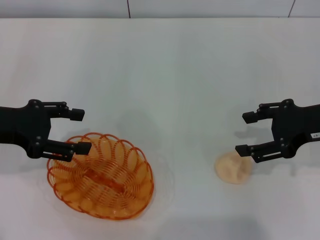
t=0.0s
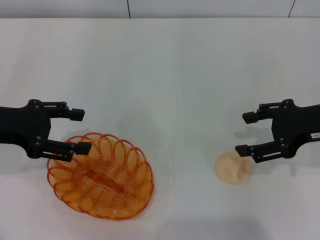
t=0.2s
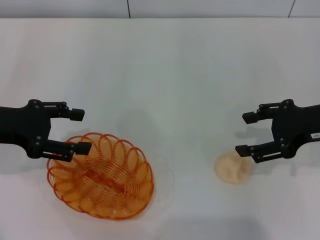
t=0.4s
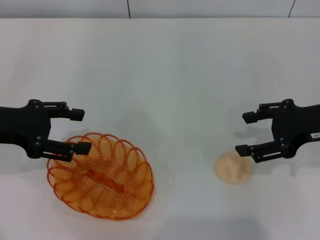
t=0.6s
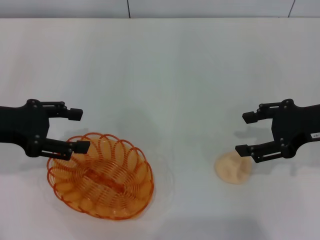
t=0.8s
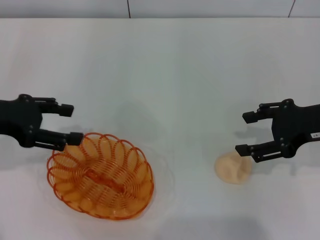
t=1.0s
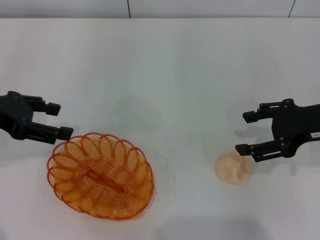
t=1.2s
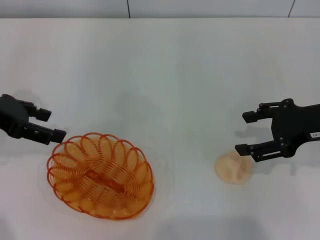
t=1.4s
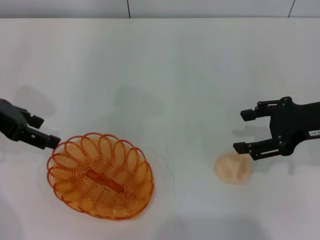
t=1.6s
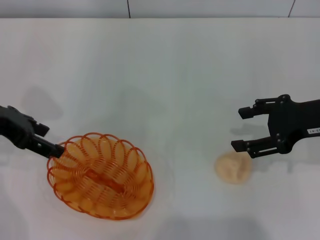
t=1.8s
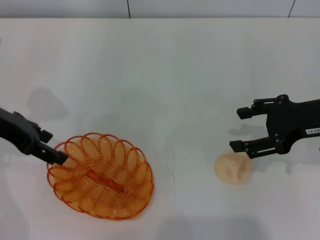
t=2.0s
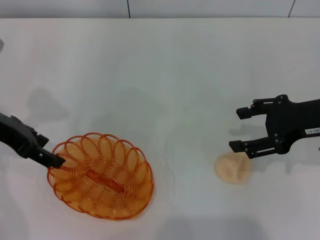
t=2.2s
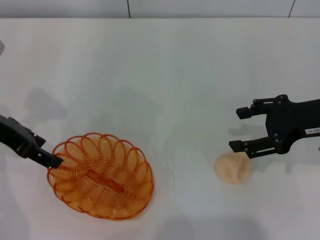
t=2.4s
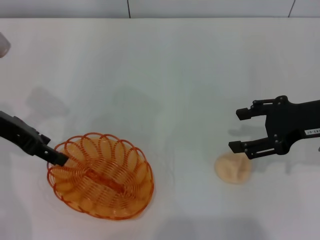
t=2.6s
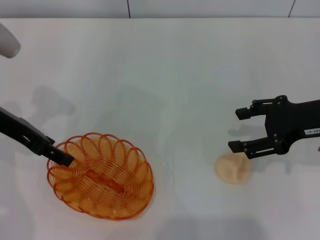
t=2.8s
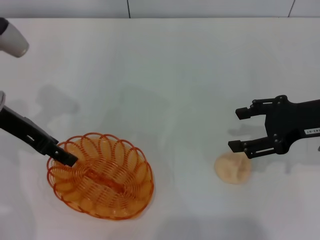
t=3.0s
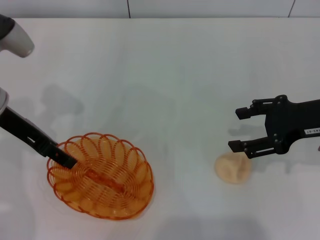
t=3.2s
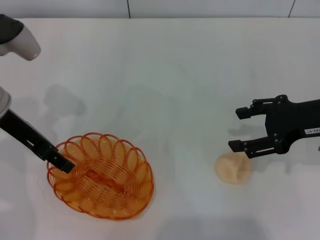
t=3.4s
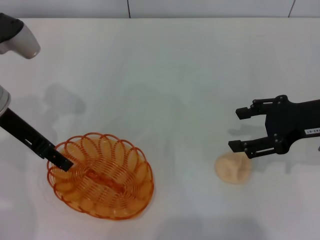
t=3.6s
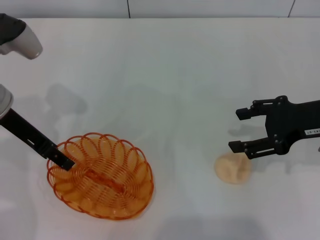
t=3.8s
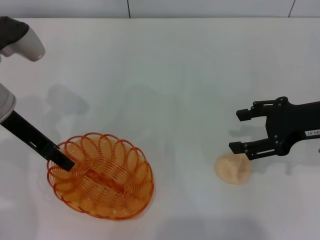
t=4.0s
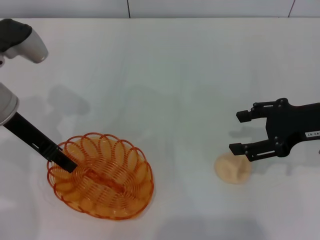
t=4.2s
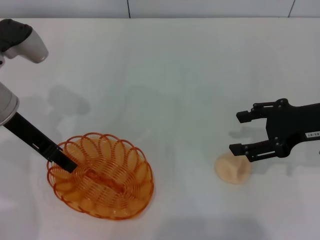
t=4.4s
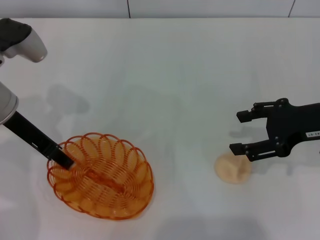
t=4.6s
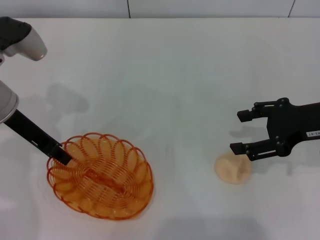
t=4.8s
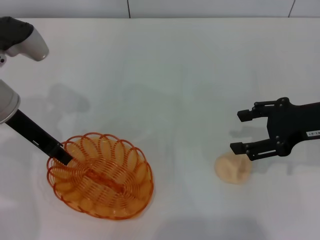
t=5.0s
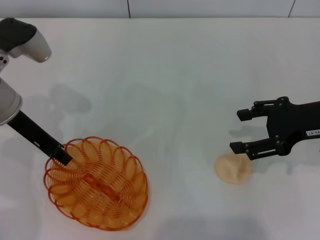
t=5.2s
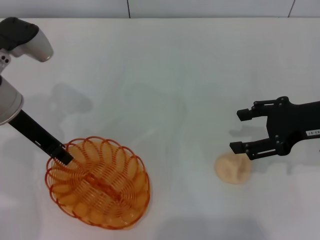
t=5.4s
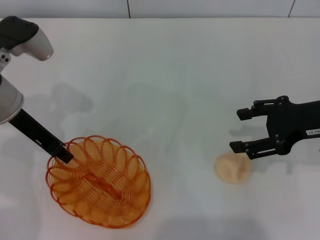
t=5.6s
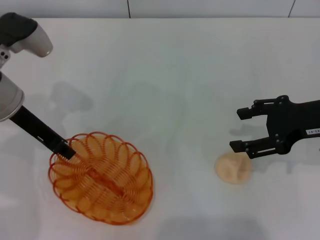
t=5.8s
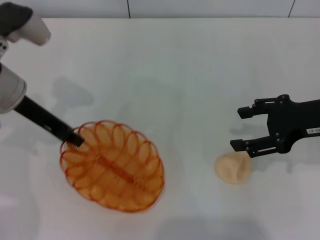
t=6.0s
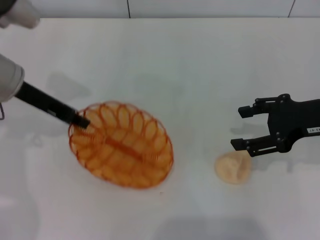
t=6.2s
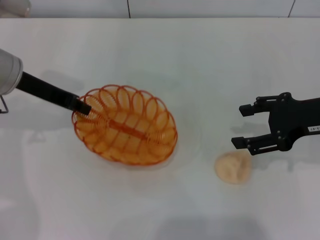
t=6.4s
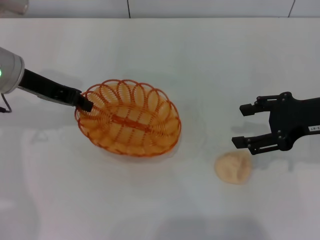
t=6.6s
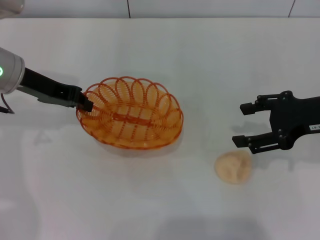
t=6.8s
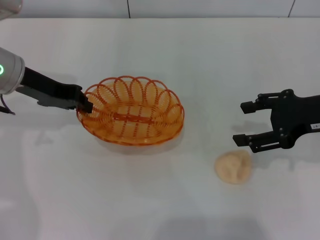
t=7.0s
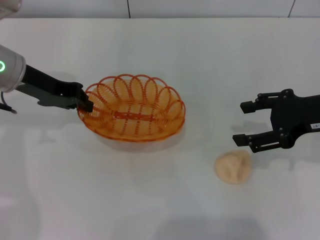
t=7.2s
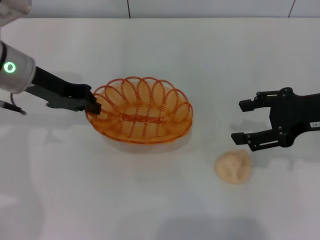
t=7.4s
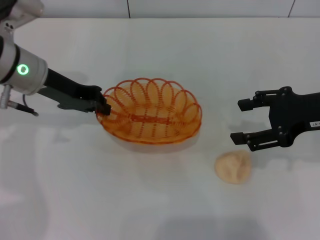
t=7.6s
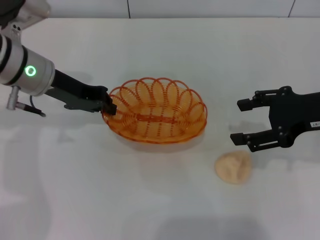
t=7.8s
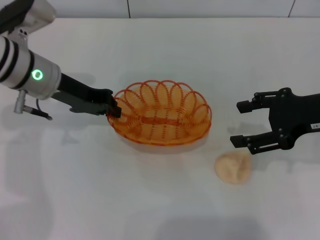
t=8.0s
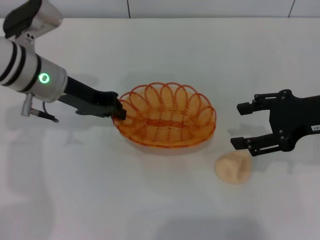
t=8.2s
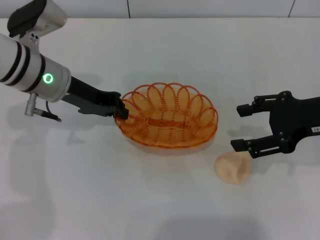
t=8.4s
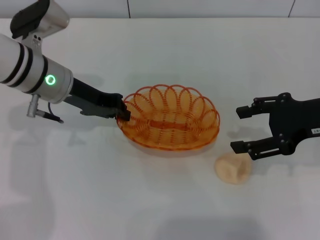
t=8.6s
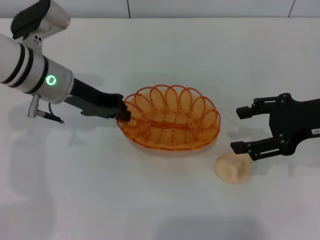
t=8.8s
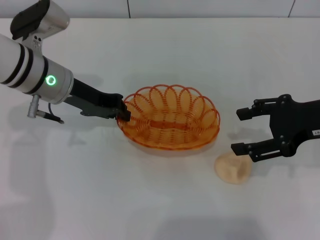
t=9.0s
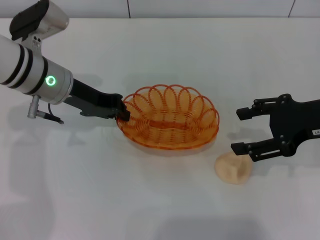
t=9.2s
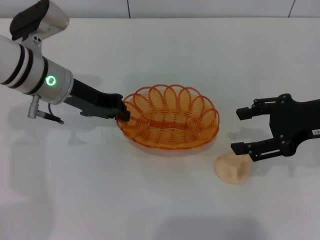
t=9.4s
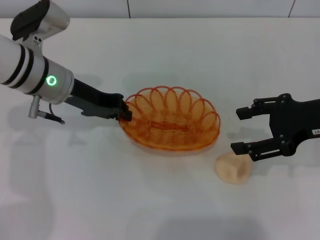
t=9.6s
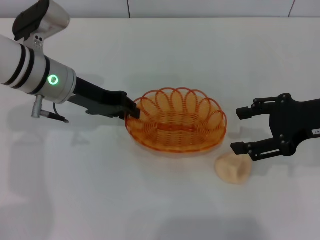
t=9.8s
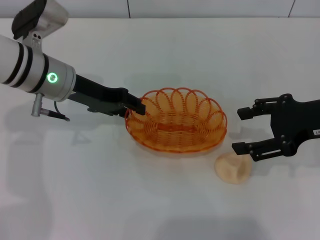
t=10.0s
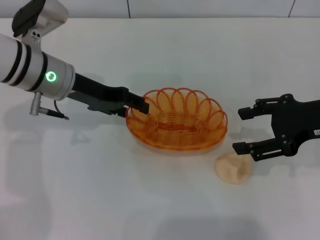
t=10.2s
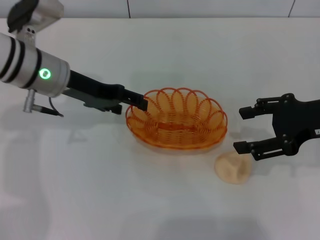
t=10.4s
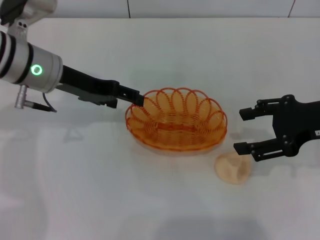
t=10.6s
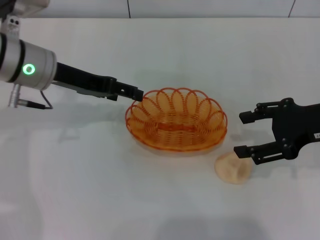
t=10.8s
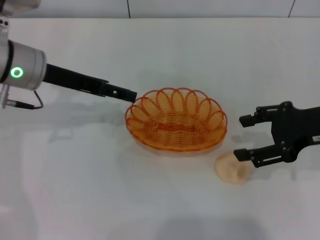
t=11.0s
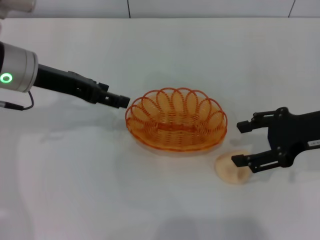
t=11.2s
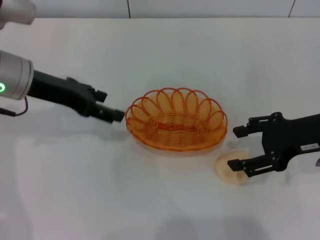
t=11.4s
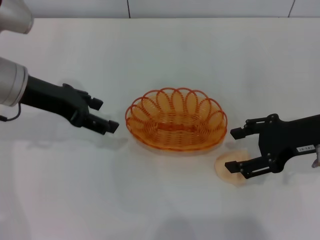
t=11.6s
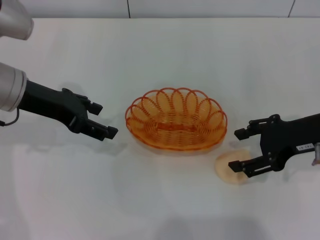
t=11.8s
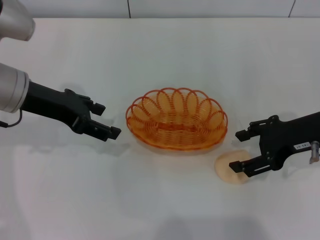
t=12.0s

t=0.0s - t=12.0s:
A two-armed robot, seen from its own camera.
Step, t=0.0s - t=6.2s: Pick up the basket with the left gripper.
Step, t=6.4s - t=11.0s: Place the basket in the center of view with the left gripper.
t=1.6s - t=3.0s: The left gripper ends up some 5 cm from where it was.
t=3.0s - t=4.4s: The grippers make only small movements.
t=4.4s - t=6.0s: The left gripper closes.
t=7.6s - t=9.0s: The grippers move only a little.
t=9.0s - t=10.4s: The left gripper opens up.
t=10.4s - t=12.0s: The left gripper moves about 5 cm.

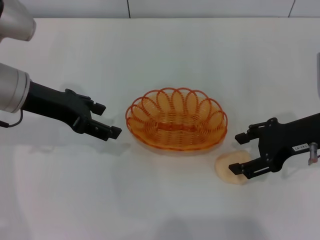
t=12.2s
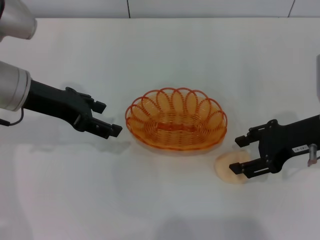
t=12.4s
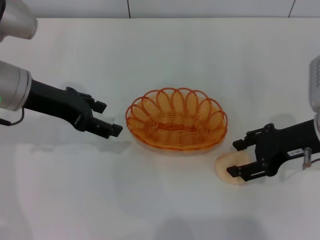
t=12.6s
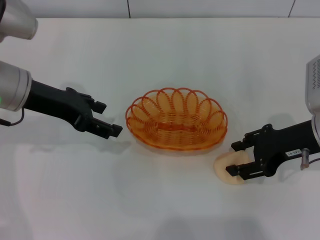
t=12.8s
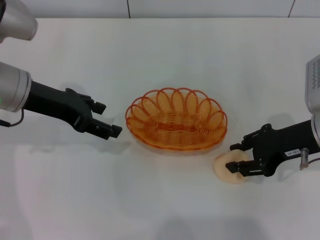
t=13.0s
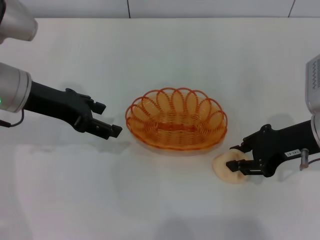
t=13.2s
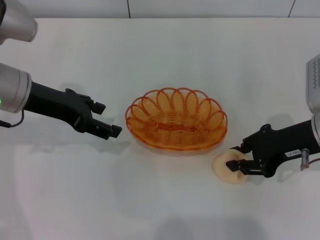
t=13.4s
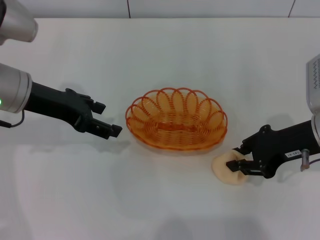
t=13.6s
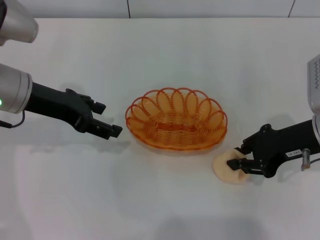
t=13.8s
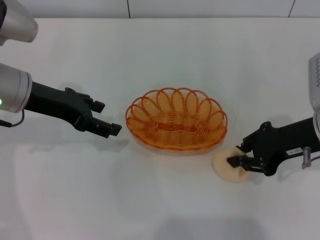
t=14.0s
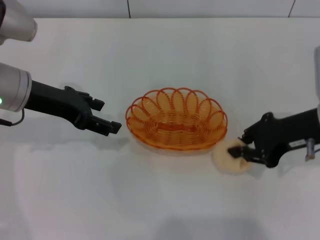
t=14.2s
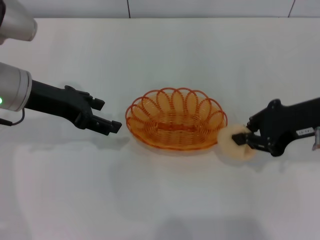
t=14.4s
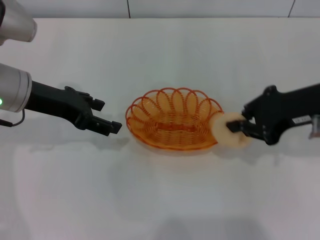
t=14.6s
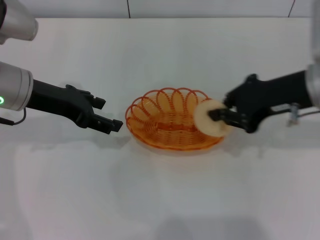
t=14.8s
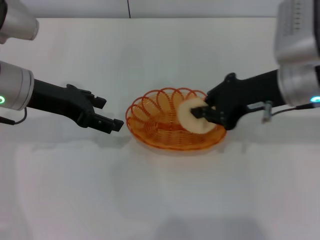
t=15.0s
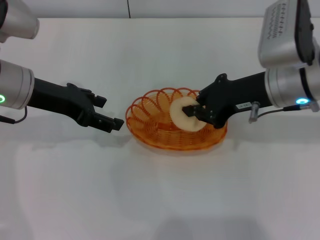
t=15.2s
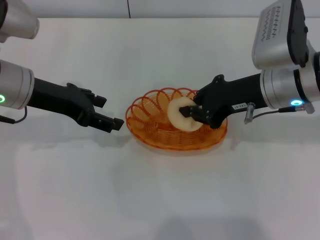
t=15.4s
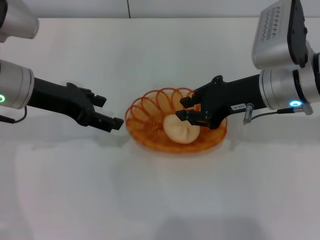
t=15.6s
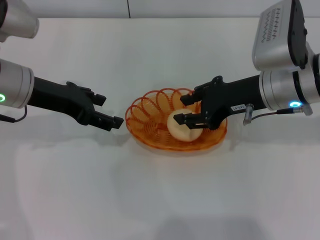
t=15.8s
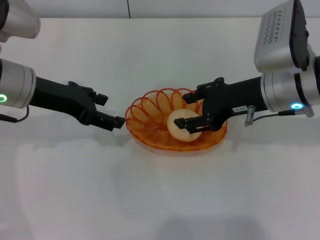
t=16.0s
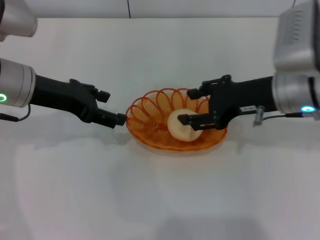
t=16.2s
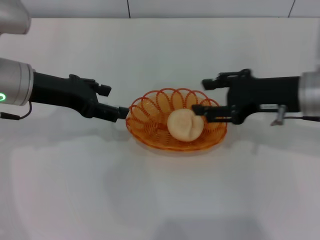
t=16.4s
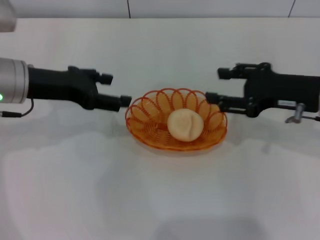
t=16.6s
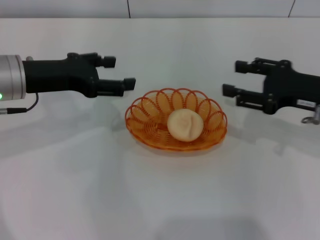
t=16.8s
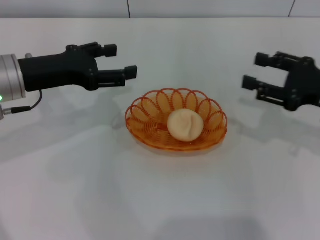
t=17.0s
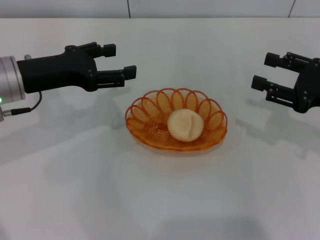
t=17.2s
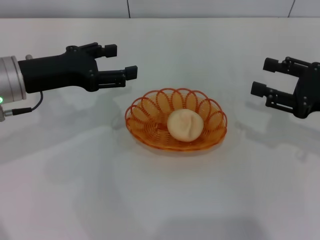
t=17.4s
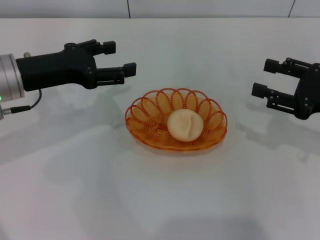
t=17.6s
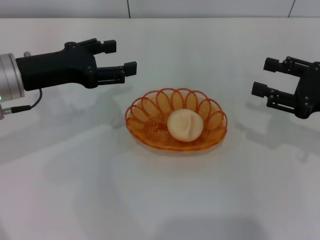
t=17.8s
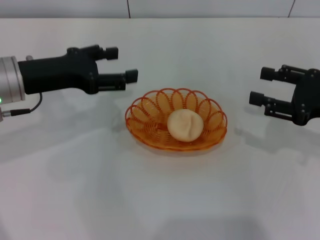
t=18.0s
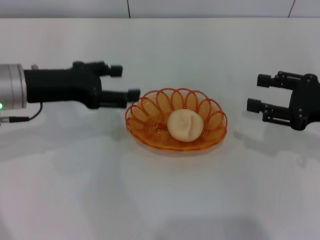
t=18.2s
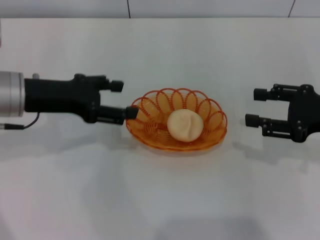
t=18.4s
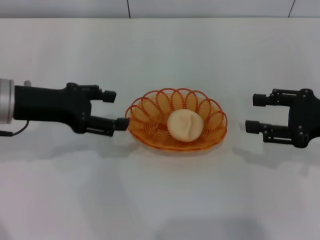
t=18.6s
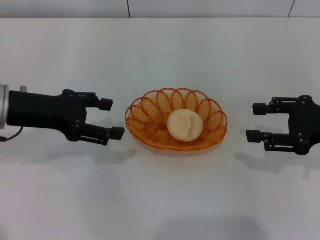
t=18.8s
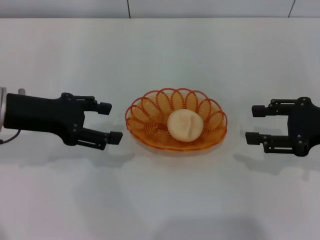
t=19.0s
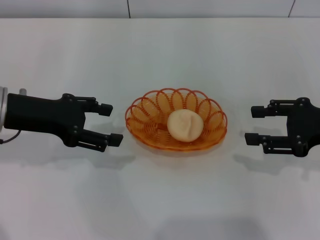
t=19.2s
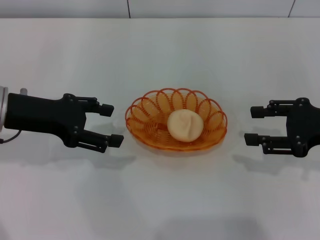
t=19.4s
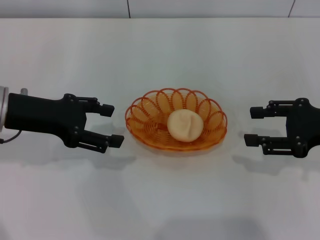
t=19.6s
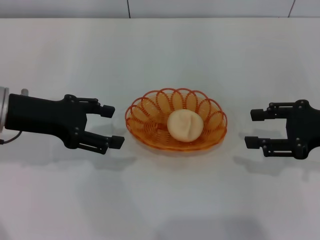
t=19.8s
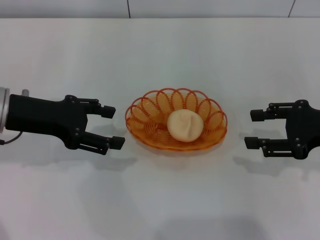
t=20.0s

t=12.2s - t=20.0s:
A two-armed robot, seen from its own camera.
Step, t=12.2s - t=14.4s: Pick up the egg yolk pastry with the right gripper.
Step, t=14.6s - t=16.6s: Place the egg yolk pastry into the basket with the right gripper.
t=12.2s - t=13.8s: The right gripper closes.
t=13.8s - t=15.4s: The right gripper goes some 5 cm to the left.
t=15.4s - t=16.8s: The right gripper shifts approximately 10 cm to the right, and opens up.
t=16.8s - t=20.0s: There are only small adjustments of the grippers.

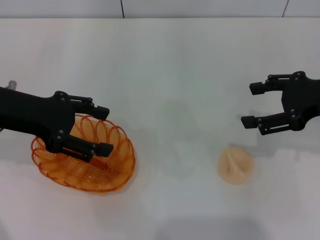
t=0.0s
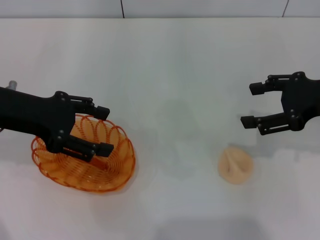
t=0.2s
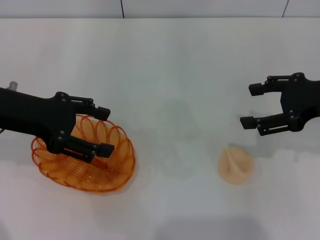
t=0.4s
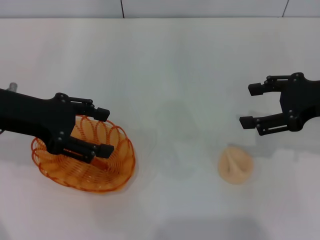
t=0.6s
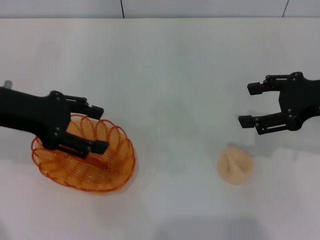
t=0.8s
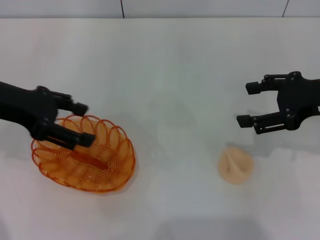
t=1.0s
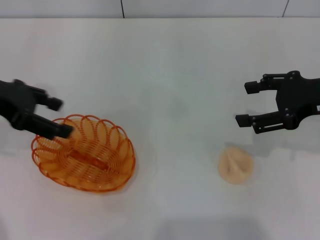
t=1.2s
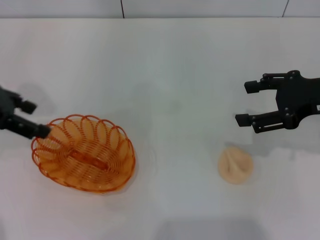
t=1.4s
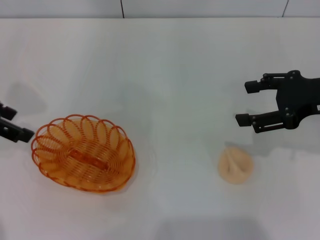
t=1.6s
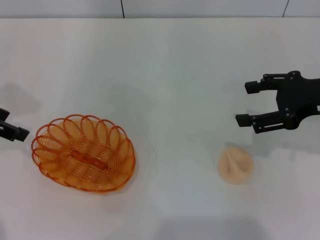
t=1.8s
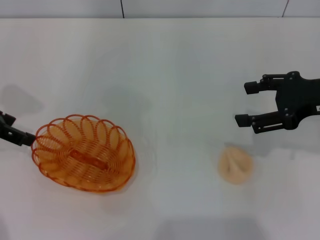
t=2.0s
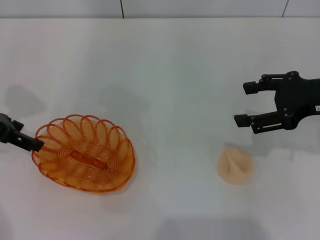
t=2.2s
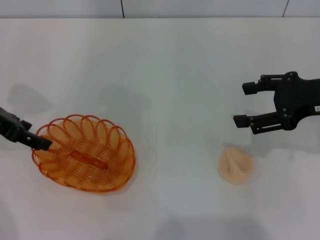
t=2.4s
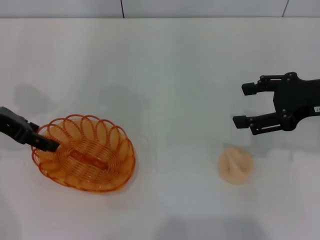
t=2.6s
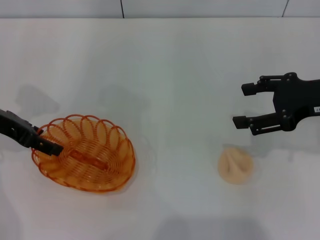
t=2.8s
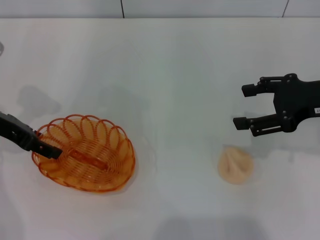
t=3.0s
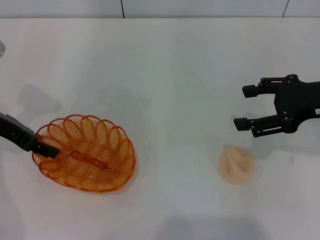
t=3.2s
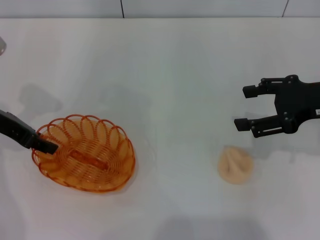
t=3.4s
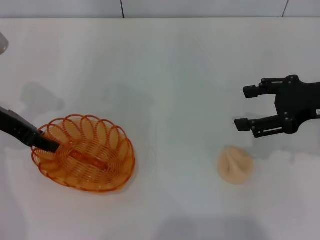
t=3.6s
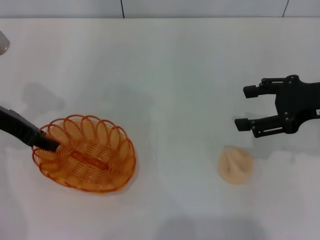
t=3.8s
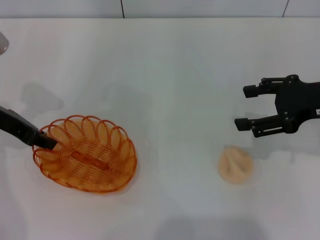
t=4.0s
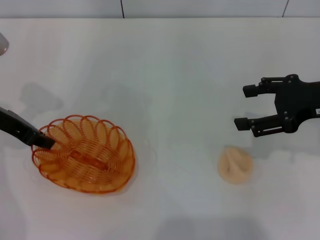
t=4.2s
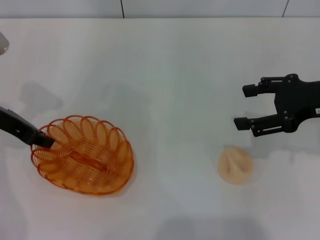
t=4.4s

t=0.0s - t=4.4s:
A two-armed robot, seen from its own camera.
t=0.0s - t=1.4s: The left gripper ends up some 5 cm from where it was.
t=1.4s - t=3.0s: The left gripper shifts roughly 5 cm downward.
t=3.0s - t=4.4s: The left gripper closes its fingers.
